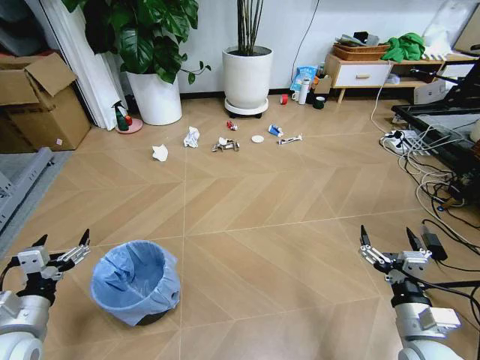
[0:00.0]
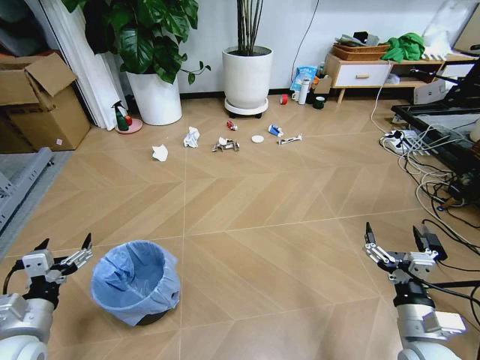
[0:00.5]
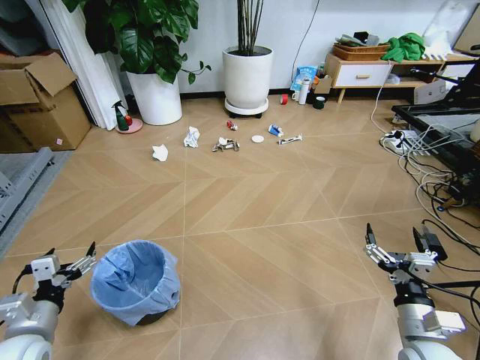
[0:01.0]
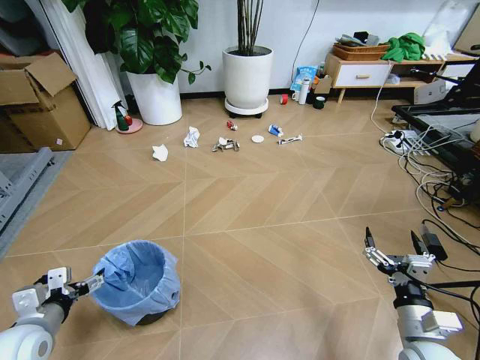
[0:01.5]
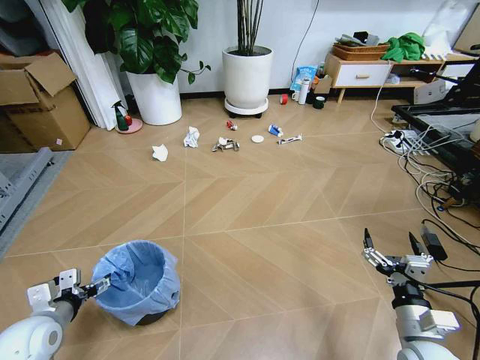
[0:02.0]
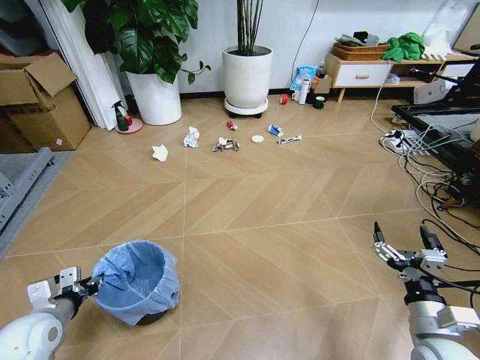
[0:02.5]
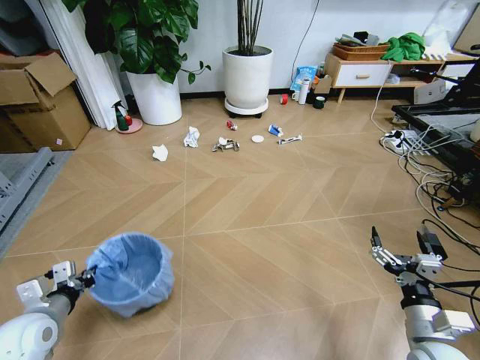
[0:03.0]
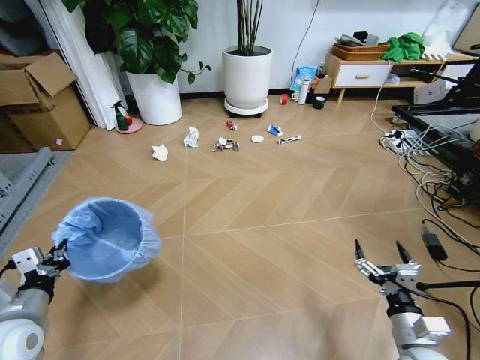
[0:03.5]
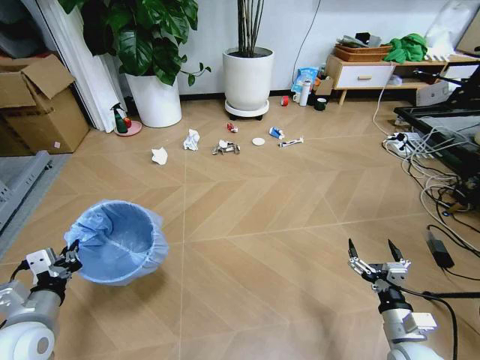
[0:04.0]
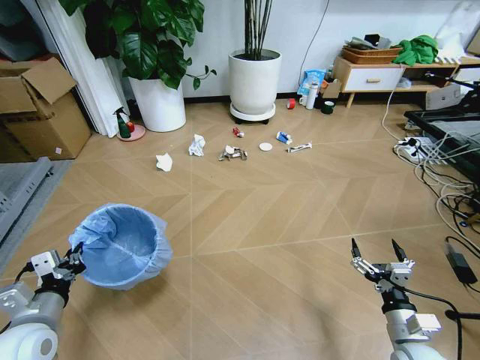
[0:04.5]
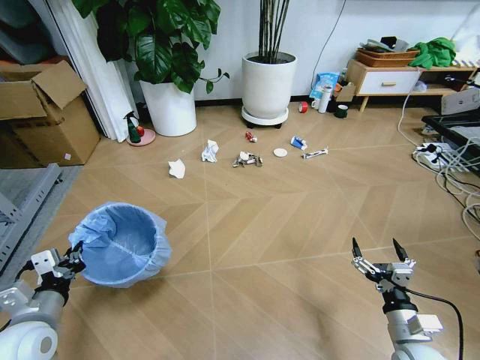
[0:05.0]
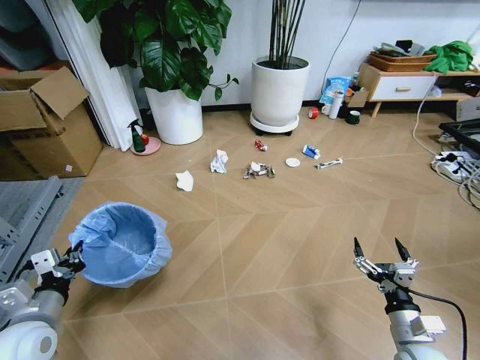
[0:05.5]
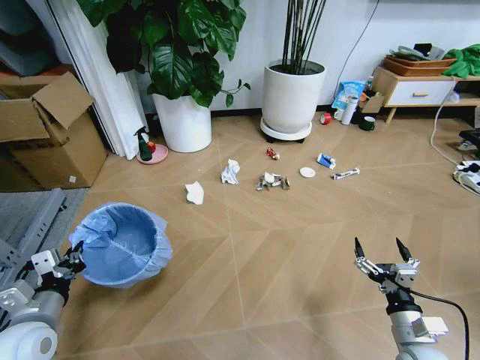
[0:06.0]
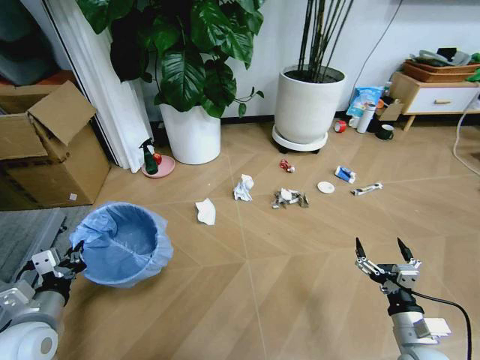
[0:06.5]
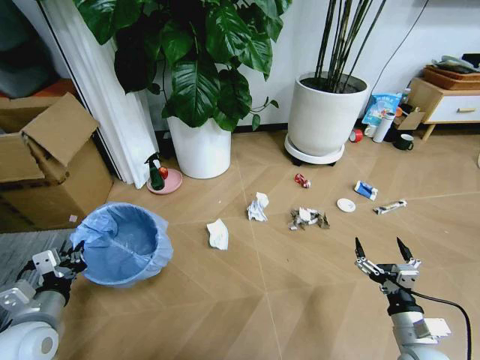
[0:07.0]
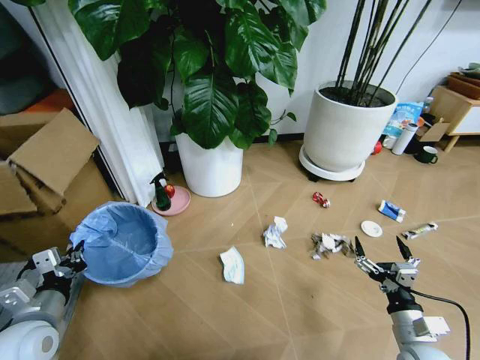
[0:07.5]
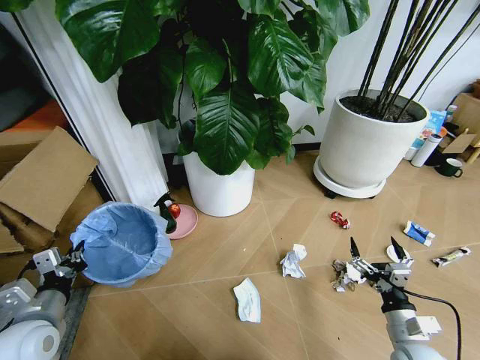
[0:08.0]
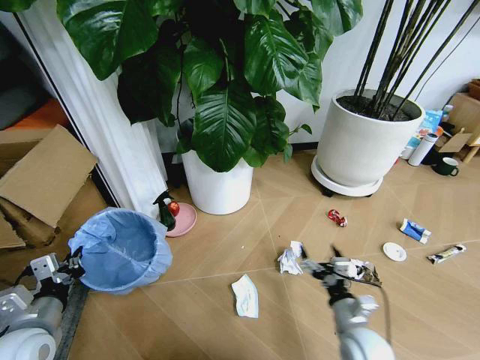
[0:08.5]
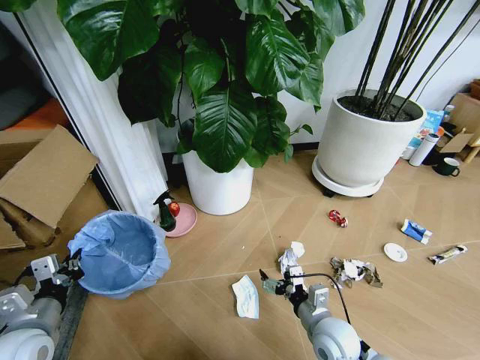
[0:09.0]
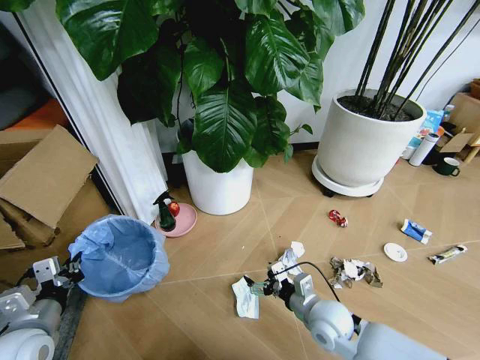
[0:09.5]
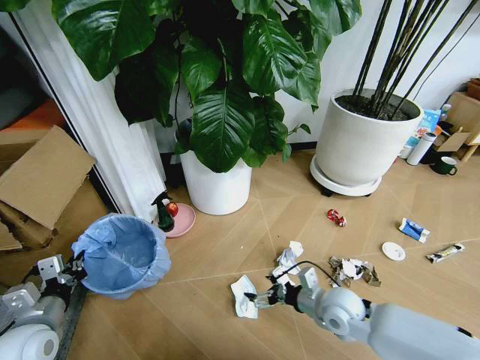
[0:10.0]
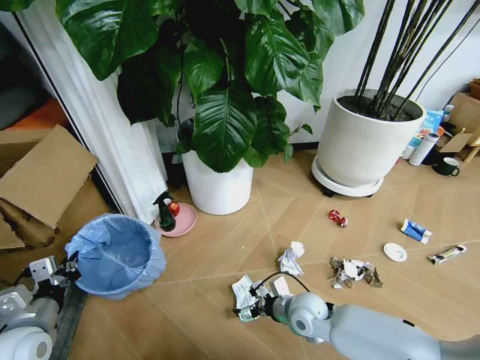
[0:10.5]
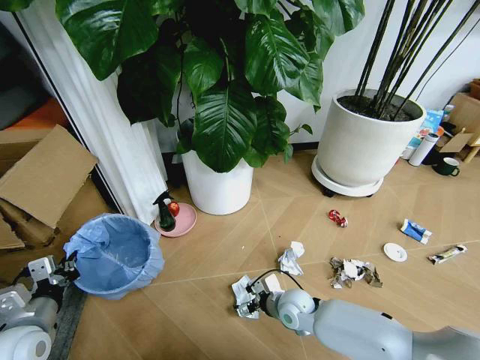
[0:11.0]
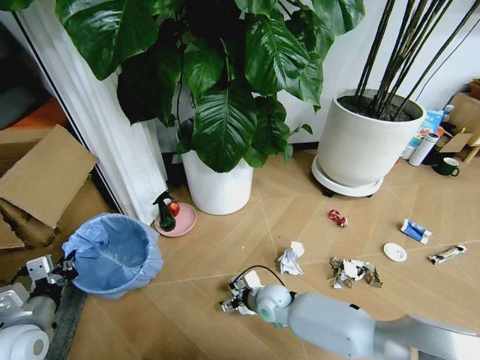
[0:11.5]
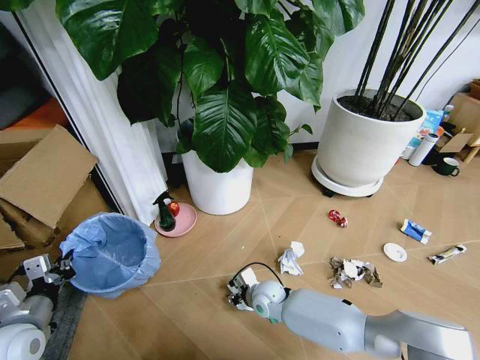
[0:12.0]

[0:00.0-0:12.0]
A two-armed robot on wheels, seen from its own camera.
Task of the whole recording: Pick up the trash bin and place the garbage on the floor into it.
0:02.0 to 0:04.0: The left gripper moves roughly 5 cm, and closes.
0:08.0 to 0:10.0: The right gripper shifts approximately 15 cm to the left and forward.
0:10.0 to 0:12.0: The right gripper goes roughly 20 cm to the left, downward and forward, and closes.

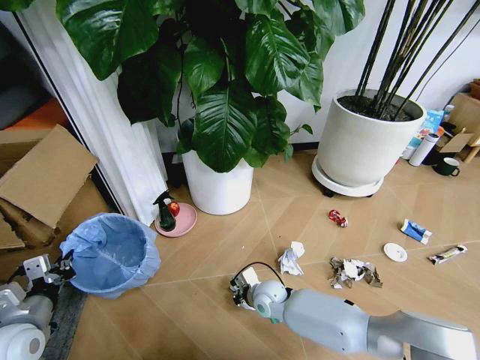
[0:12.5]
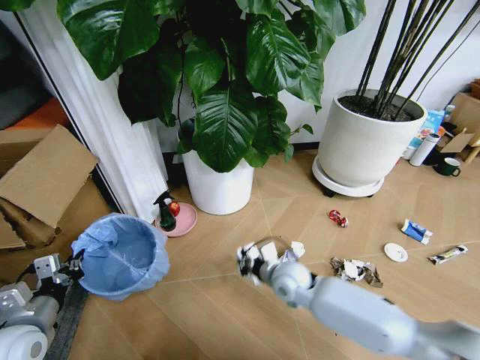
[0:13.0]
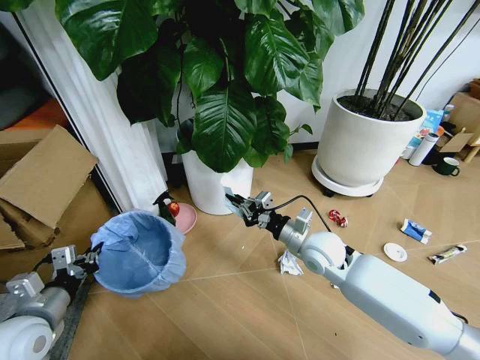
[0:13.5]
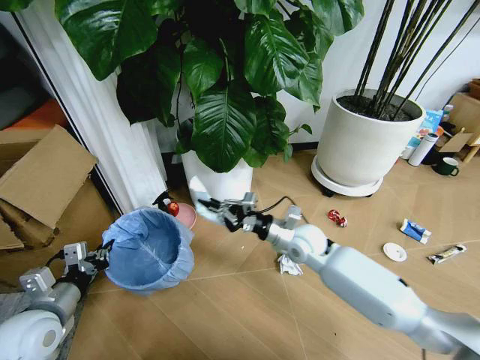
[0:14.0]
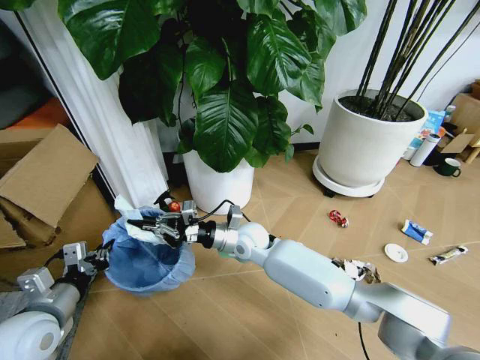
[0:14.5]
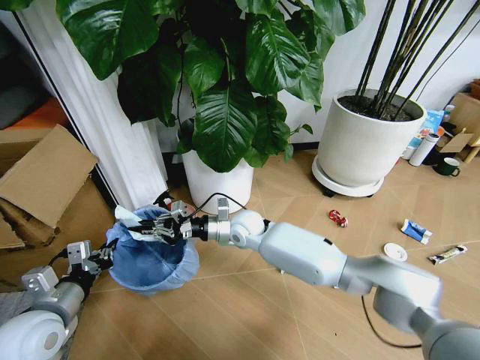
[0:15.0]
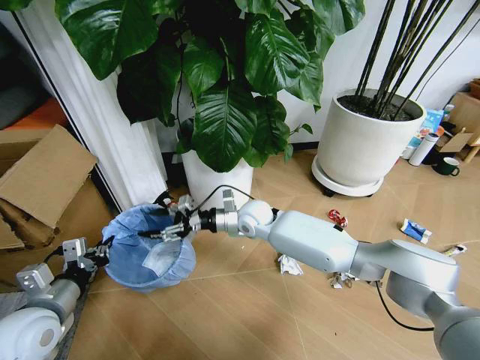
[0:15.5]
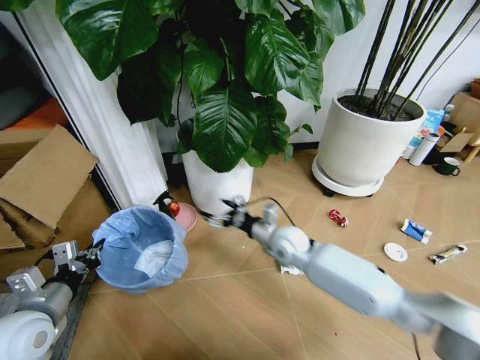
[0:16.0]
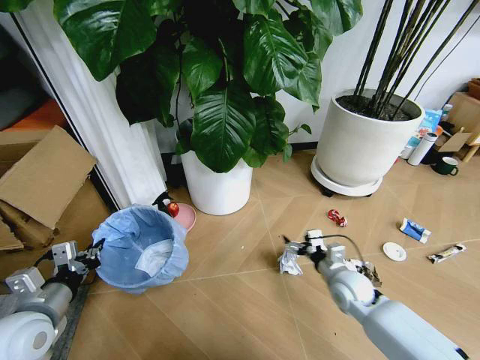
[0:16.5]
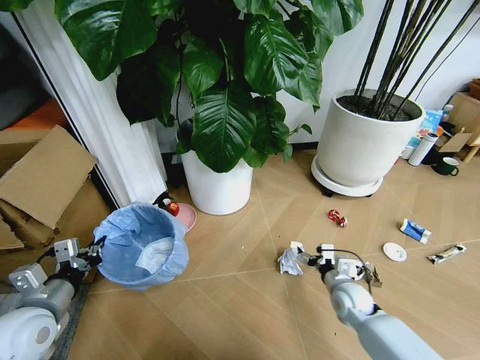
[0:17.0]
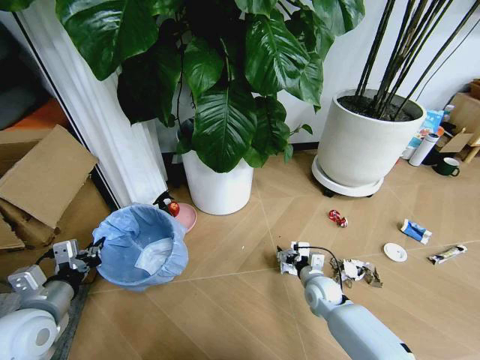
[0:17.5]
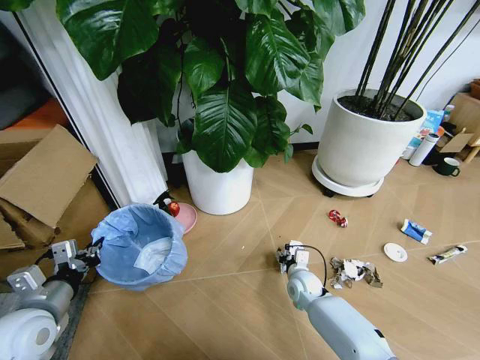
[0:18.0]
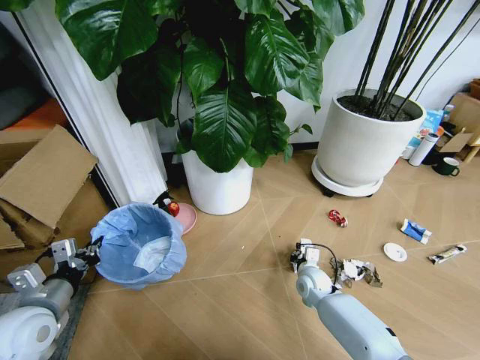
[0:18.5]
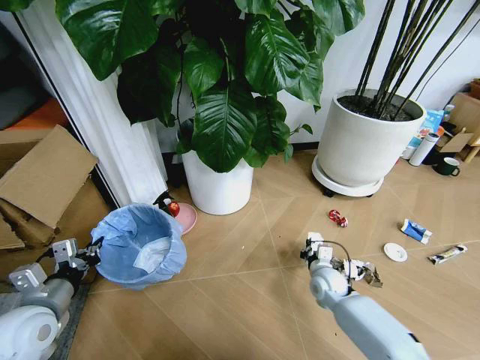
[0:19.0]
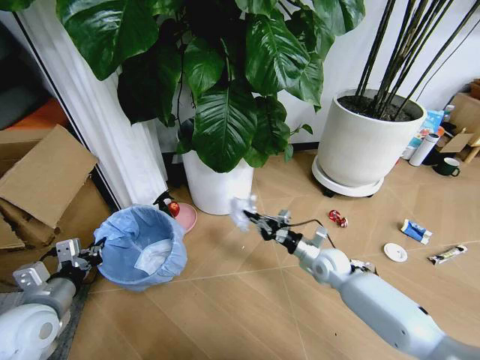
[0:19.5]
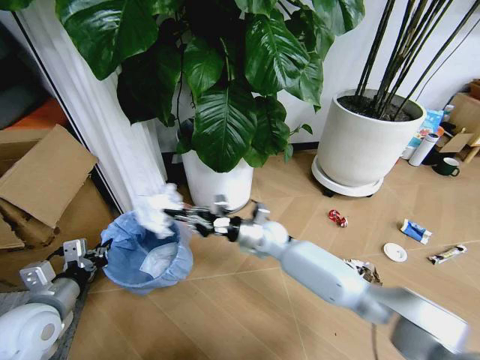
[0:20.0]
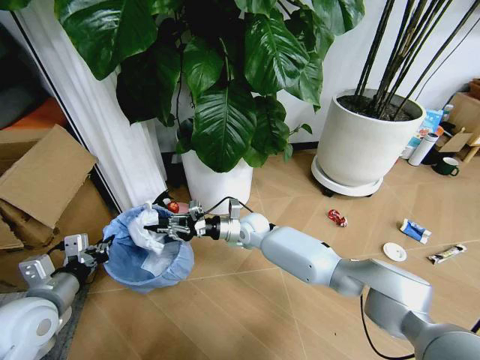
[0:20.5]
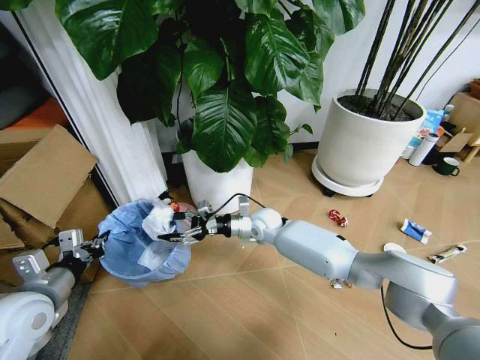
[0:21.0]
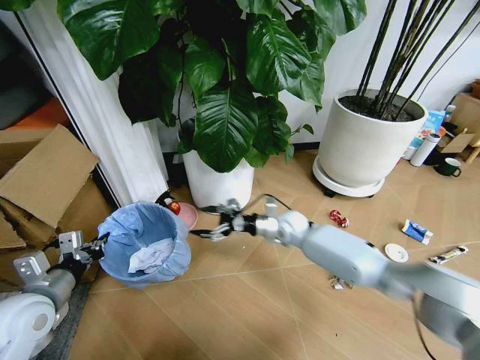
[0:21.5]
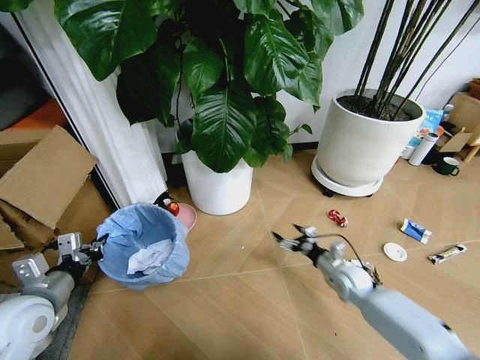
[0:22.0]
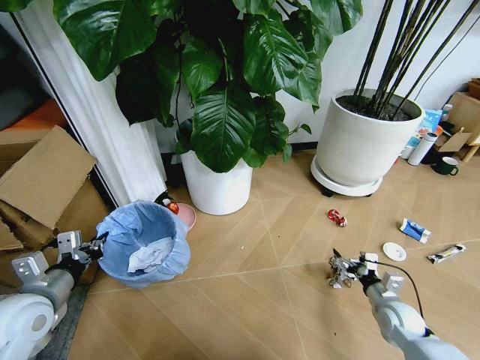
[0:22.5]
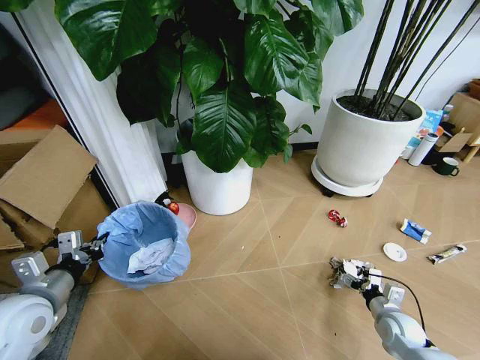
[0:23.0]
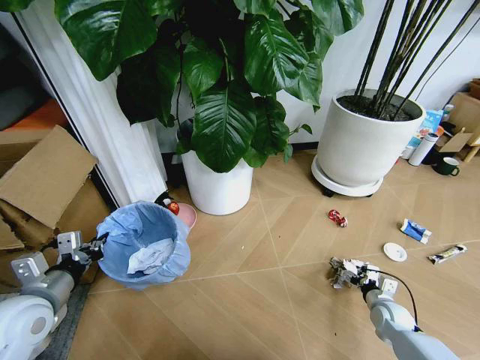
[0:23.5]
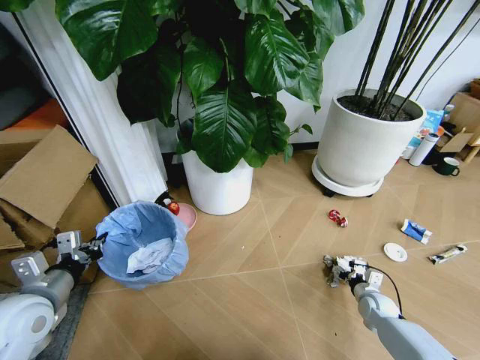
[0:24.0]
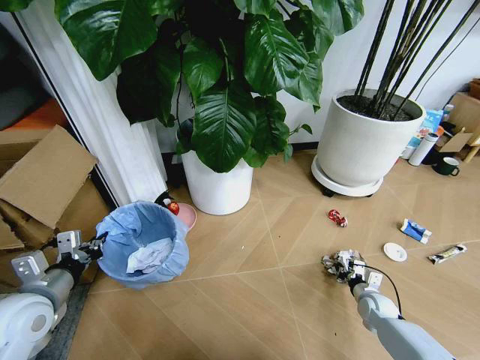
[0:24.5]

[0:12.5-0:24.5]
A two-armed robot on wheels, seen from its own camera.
Task of the whole recording: Pick up the trash bin and place the garbage on the floor into it.
0:12.5 to 0:14.5: The left gripper ends up roughly 5 cm from where it was. The right gripper heads upward and forward, covering some 20 cm.
0:14.5 to 0:16.5: The right gripper travels to the right by approximately 25 cm, and opens its fingers.
0:16.5 to 0:18.5: The right gripper is displaced downward, to the left and forward by approximately 10 cm, and closes up.
0:18.5 to 0:20.5: The right gripper shifts some 25 cm to the left, upward and forward.
0:20.5 to 0:22.5: The right gripper moves to the right and backward, about 40 cm, and opens up.
0:22.5 to 0:24.5: The right gripper is displaced downward by approximately 10 cm, and closes its fingers.

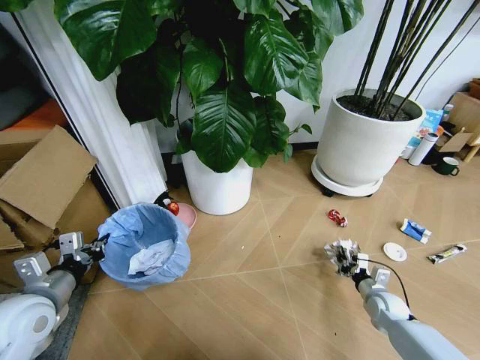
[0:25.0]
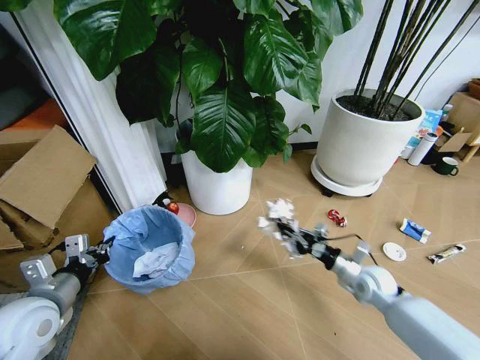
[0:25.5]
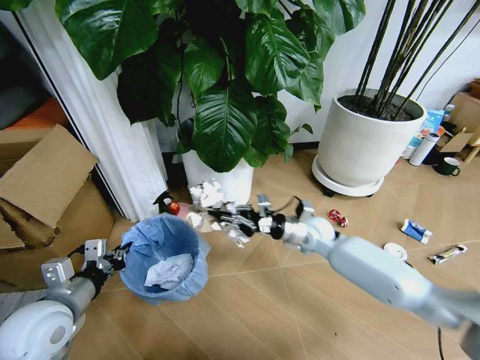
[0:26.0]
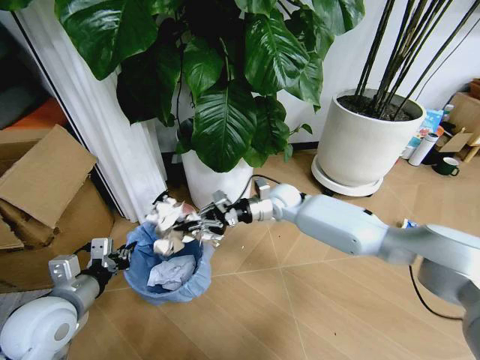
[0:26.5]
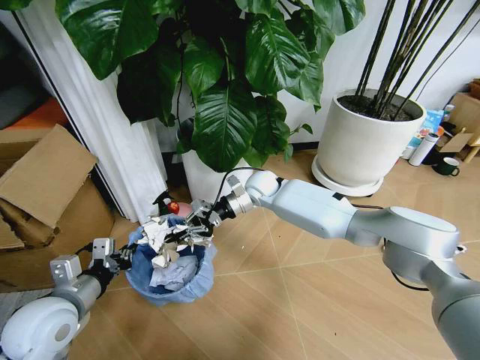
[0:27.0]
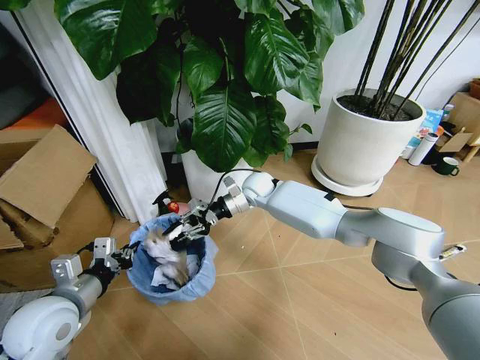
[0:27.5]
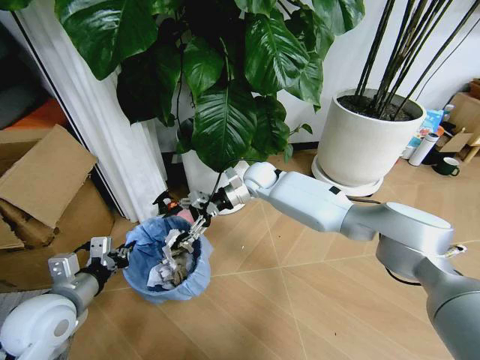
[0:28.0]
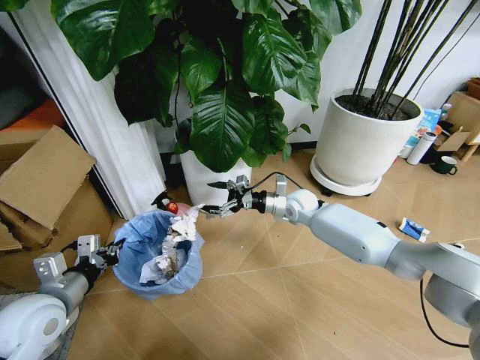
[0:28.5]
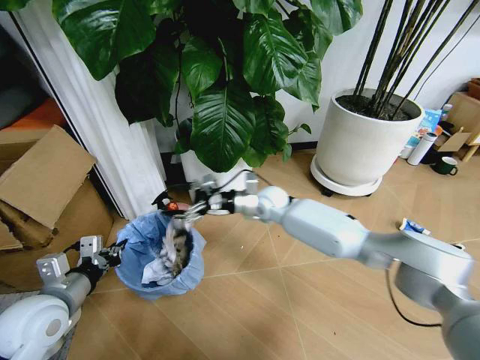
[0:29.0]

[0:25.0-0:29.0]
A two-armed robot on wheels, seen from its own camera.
Task of the whole recording: Pick up the trash bin and place the garbage on the floor into it.
0:25.0 to 0:27.0: The right gripper travels to the left, upward and forward by roughly 50 cm.
0:27.0 to 0:29.0: The right gripper opens its fingers.
